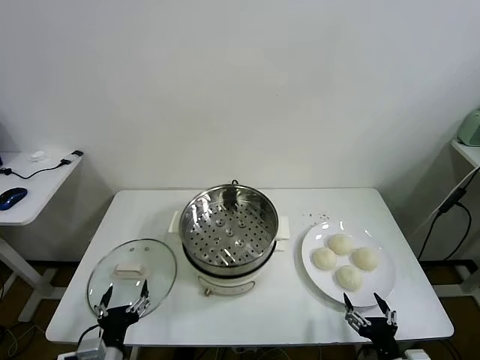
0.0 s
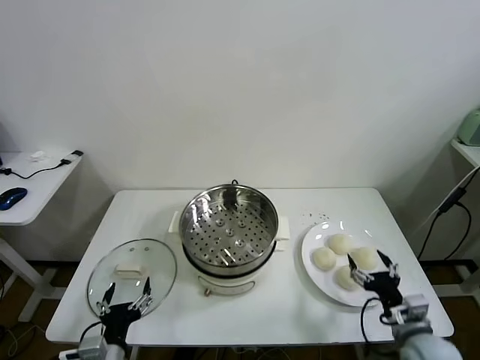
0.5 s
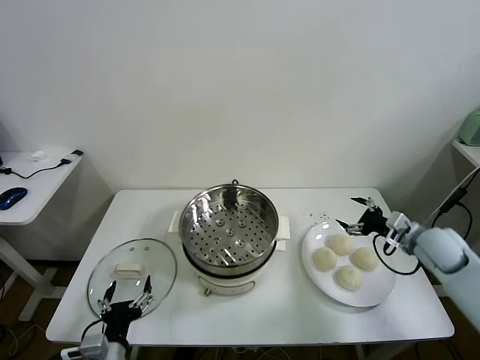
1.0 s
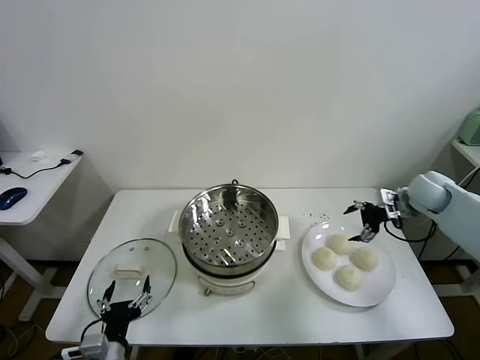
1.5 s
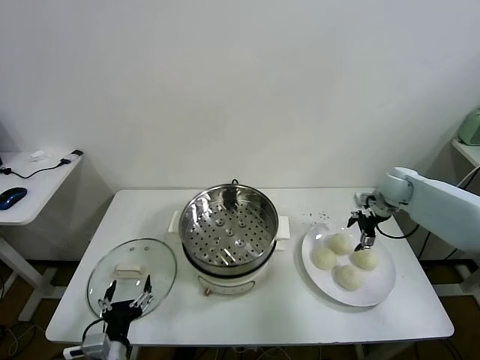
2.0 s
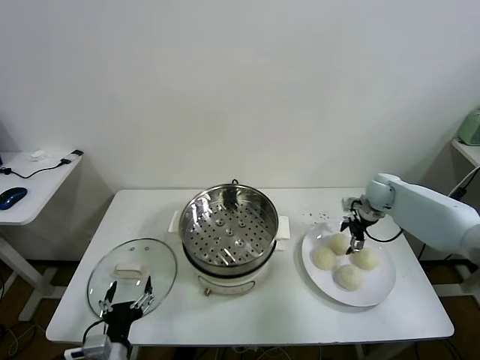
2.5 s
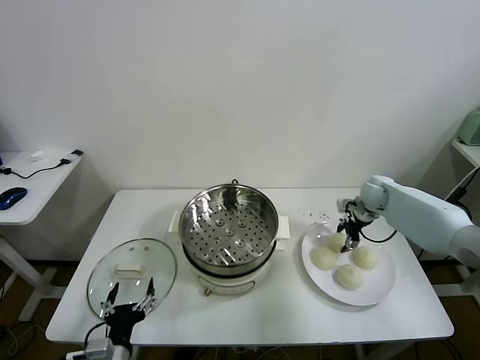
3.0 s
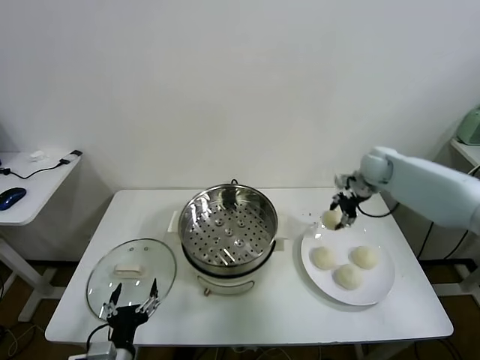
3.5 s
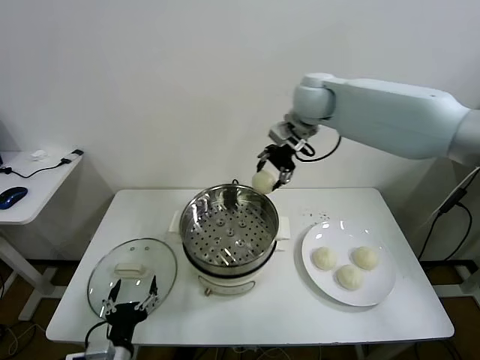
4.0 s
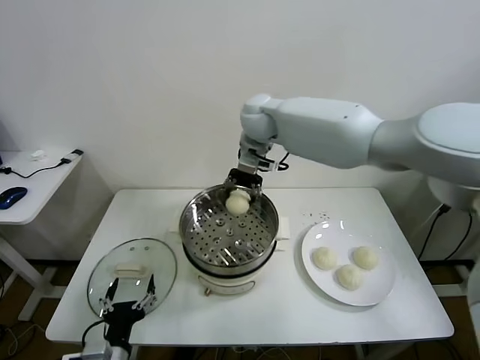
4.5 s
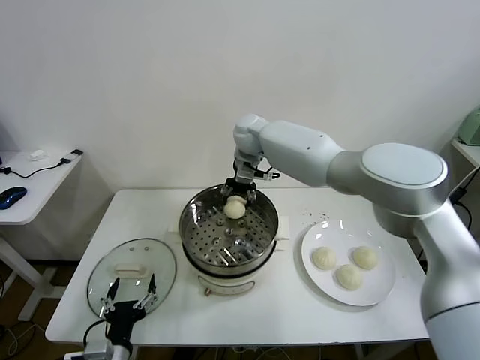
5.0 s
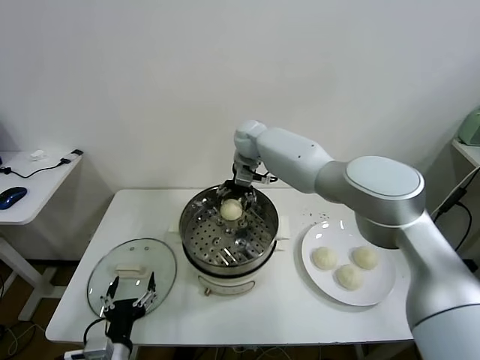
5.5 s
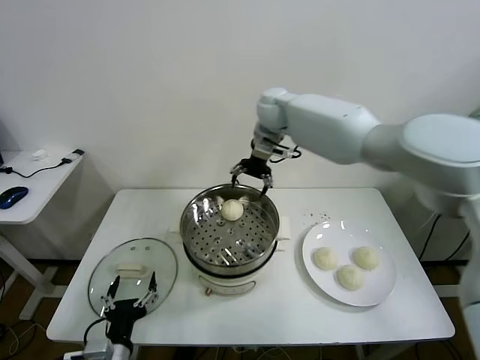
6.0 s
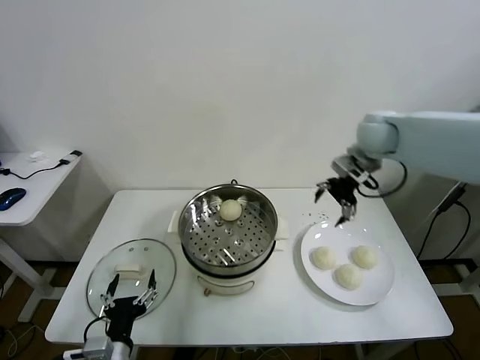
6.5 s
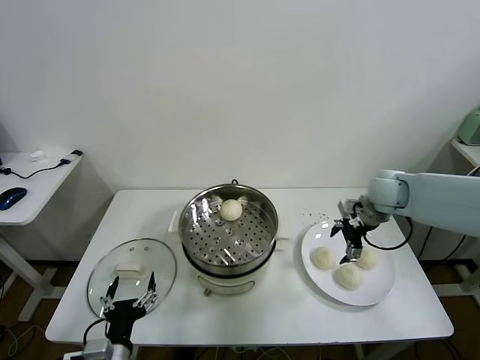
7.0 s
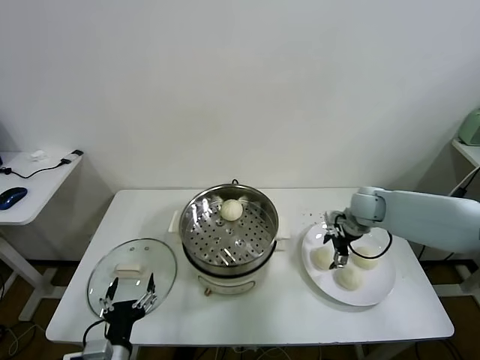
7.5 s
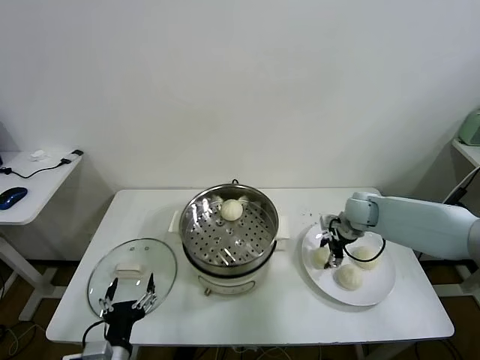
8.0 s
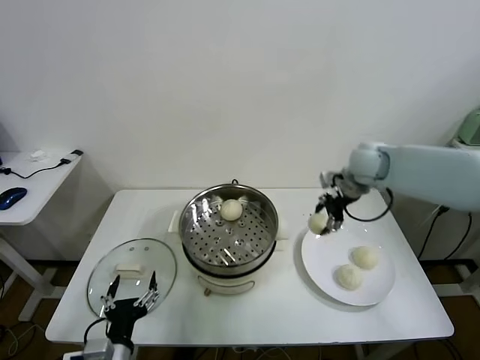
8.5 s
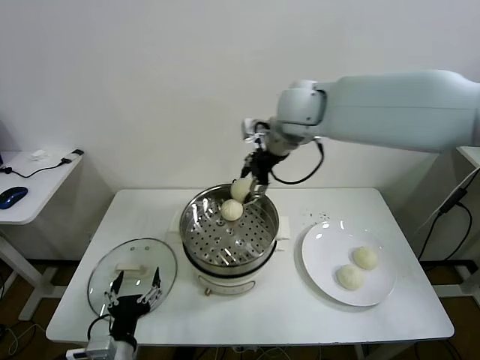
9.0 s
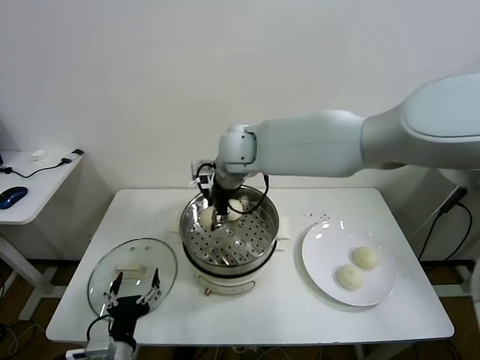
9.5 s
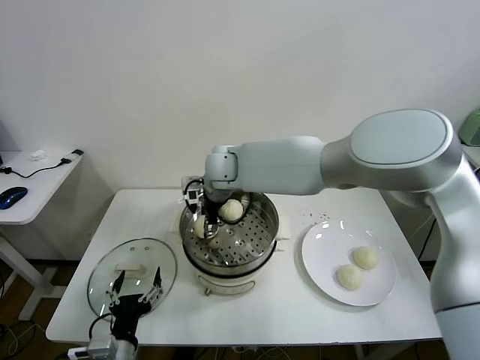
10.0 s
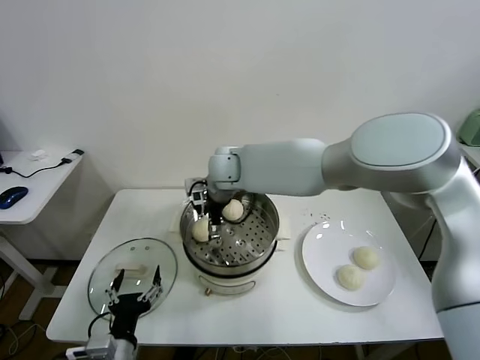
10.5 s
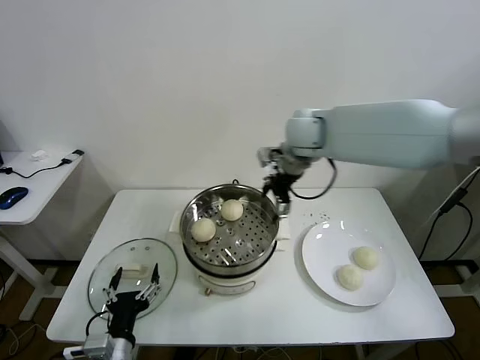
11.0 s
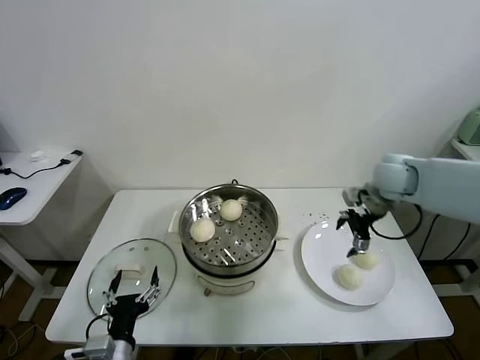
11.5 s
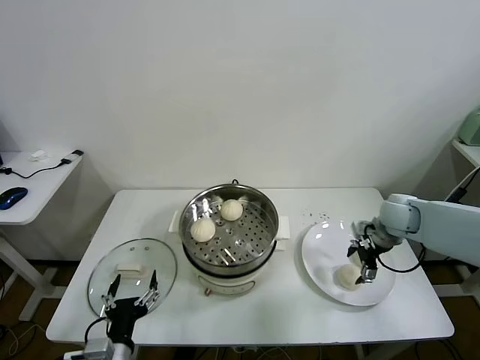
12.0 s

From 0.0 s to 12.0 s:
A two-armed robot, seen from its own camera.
Task of the whole recording: take steamed baozi put them in steamer.
Step, from 0.0 s to 3.0 s: Grasp the baozi in the plate with right gripper.
Step, from 3.5 s to 5.5 s: Place the baozi on the steamer with right gripper.
Step, from 6.0 s to 8.0 s: Grasp the baozi in the plate with right gripper.
Step, from 8.5 s to 10.0 s: Place the baozi on the steamer with right gripper.
From 2.0 s to 4.0 s: The right gripper is displaced to the left and upward by approximately 40 cm, and closes its fingers.
From 4.0 s to 6.0 s: The right gripper goes approximately 5 cm forward, goes downward and returns, some 15 cm each way, and opens.
From 6.0 s to 8.0 s: The right gripper is displaced downward, to the right and backward by approximately 35 cm, and closes up.
From 8.0 s to 10.0 s: The right gripper is displaced to the left by some 35 cm.
From 10.0 s to 12.0 s: The right gripper moves to the right, approximately 40 cm, and opens.

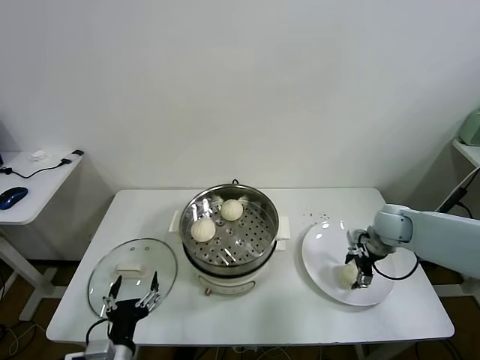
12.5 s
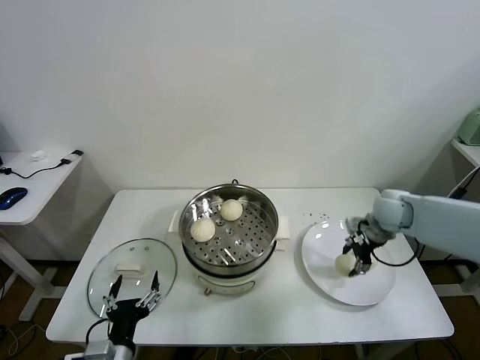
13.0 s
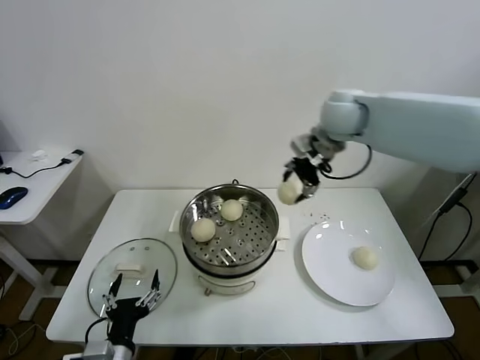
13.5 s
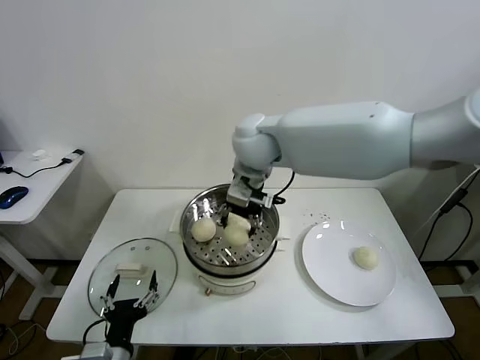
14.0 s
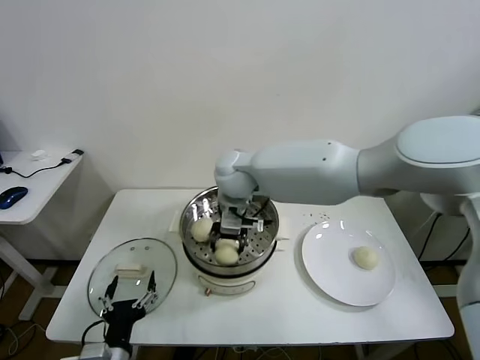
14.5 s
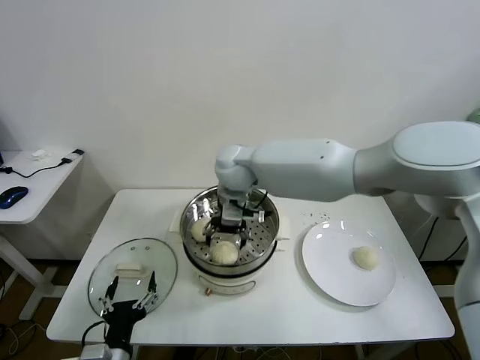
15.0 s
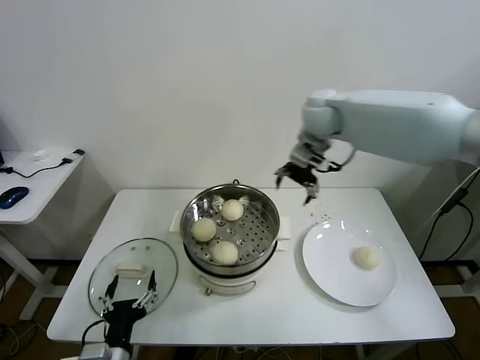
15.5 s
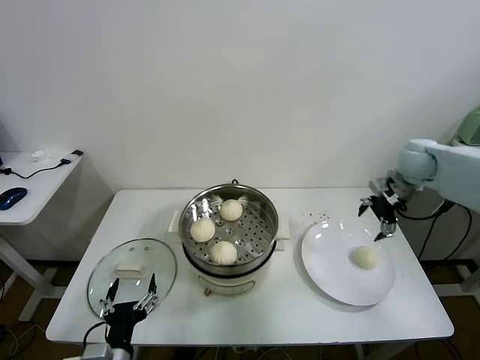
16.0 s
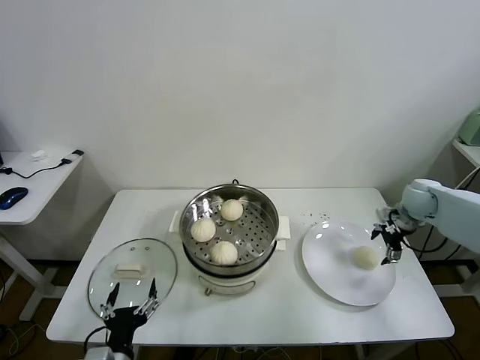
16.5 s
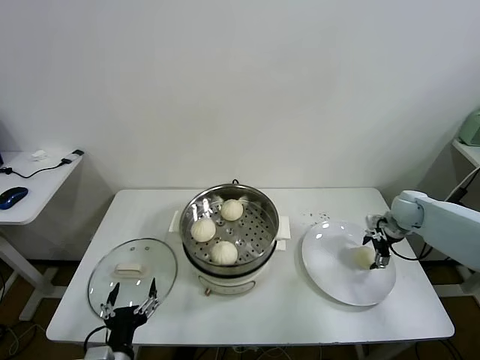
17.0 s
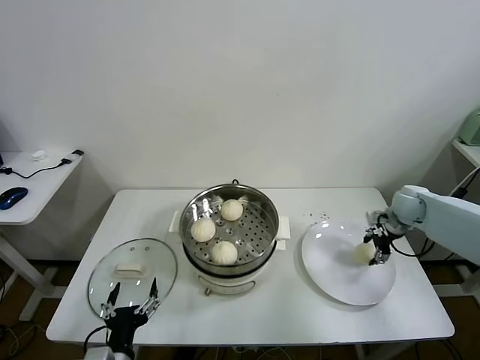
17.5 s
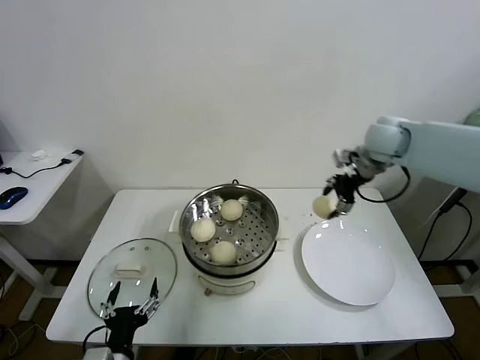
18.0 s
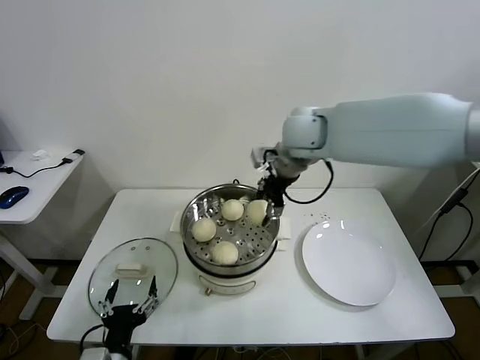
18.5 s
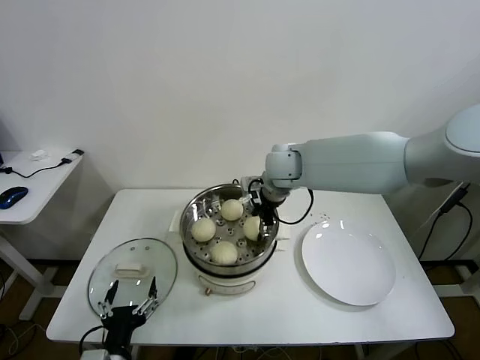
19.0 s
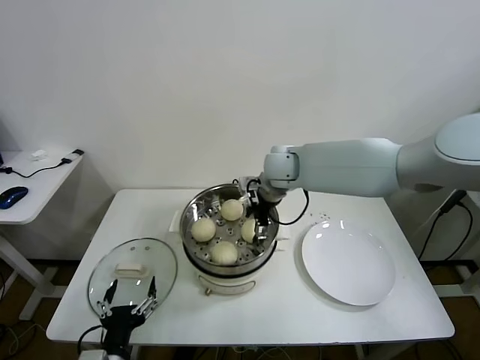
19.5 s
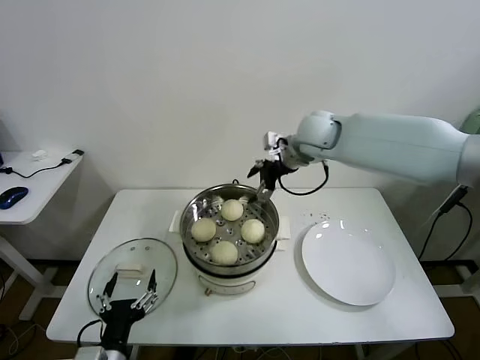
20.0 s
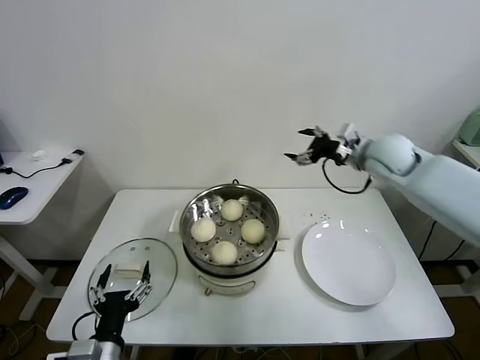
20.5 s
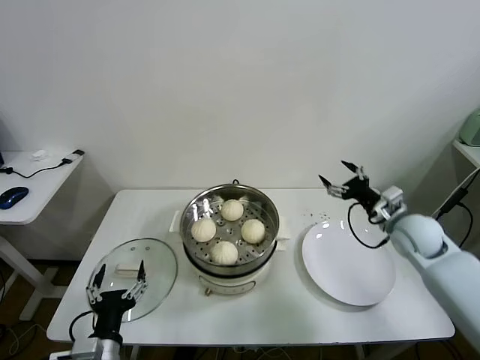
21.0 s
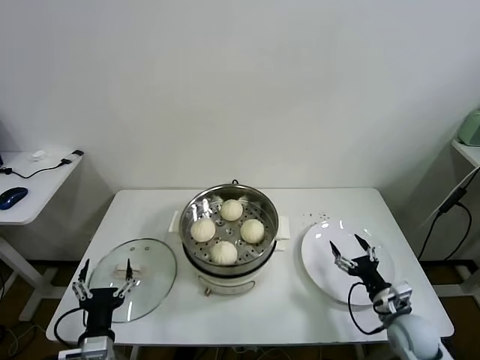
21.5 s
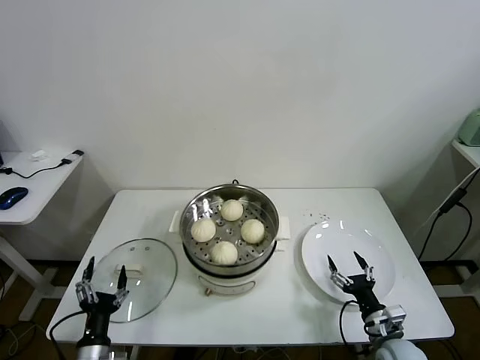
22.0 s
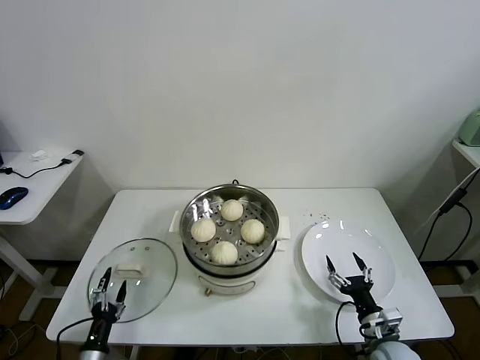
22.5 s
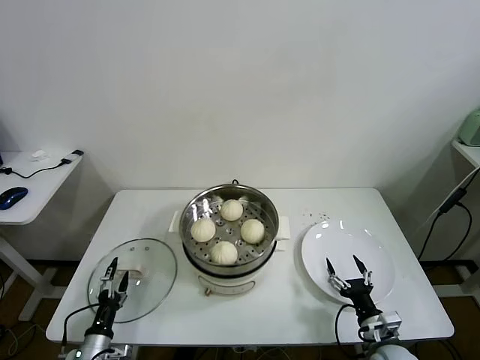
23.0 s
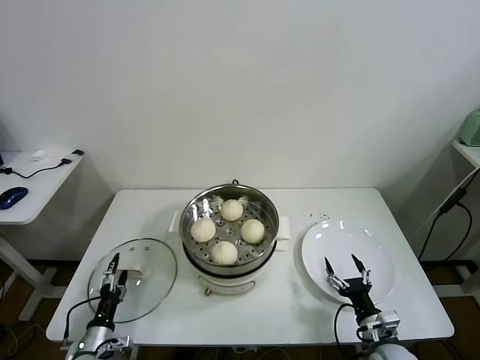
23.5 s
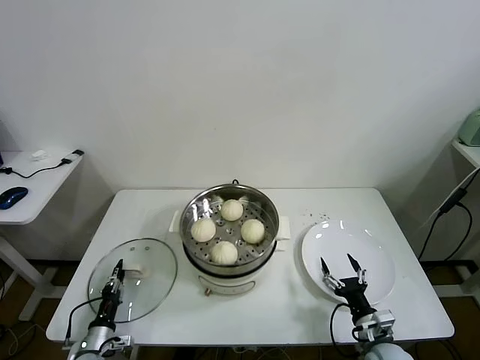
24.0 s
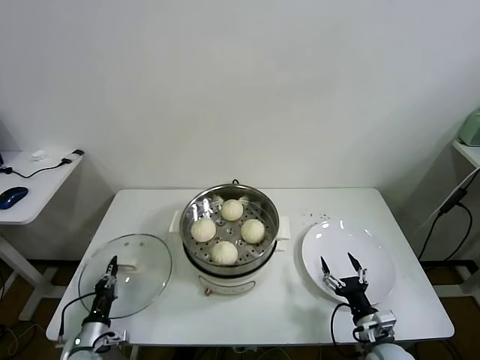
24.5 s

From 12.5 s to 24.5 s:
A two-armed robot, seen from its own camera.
Task of the whole recording: take steamed baozi put them in steamer.
Step, from 13.0 s to 14.5 s: Place the baozi on the steamer with right gripper.
Step, from 15.0 s to 17.0 s: Grasp the baozi in the plate with right gripper.
Step, from 17.5 s to 19.5 s: Place the baozi on the steamer with right gripper.
Step, from 20.0 s to 24.0 s: Grasp the pot lid with left gripper.
From 12.5 s to 14.5 s: The right gripper heads to the left, covering roughly 40 cm, and closes.
From 14.5 s to 16.5 s: The right gripper goes about 50 cm to the right, and opens.
From 16.5 s to 18.5 s: The right gripper heads to the left and upward, covering about 40 cm, and closes its fingers.
From 18.5 s to 20.5 s: The right gripper moves to the right, some 20 cm, and opens up.
From 20.5 s to 22.5 s: The left gripper is displaced downward and to the left by some 20 cm; the right gripper travels downward and backward by roughly 50 cm.
From 22.5 s to 24.5 s: The left gripper is displaced forward by some 5 cm, and closes.

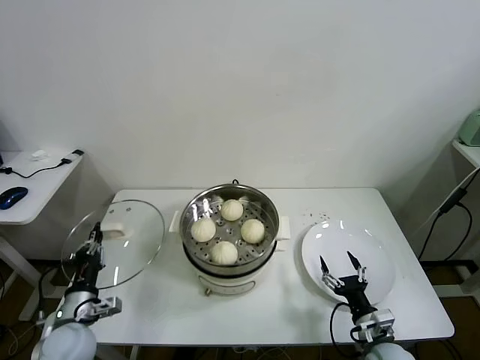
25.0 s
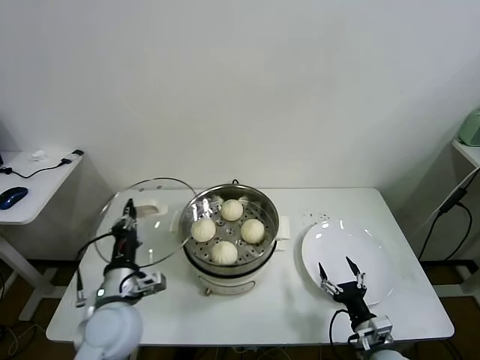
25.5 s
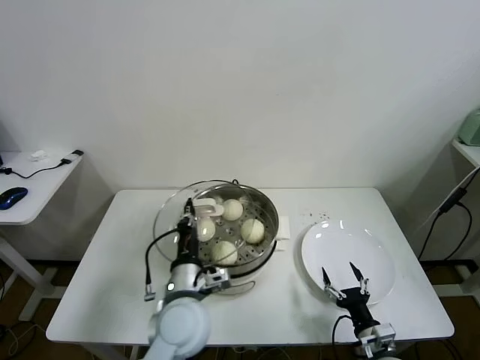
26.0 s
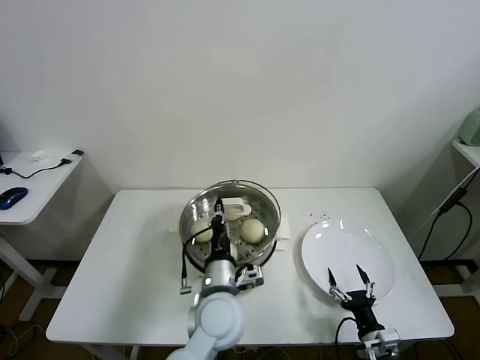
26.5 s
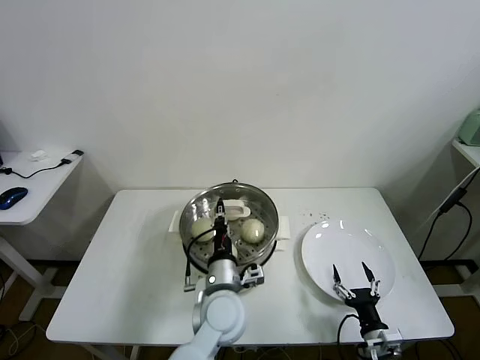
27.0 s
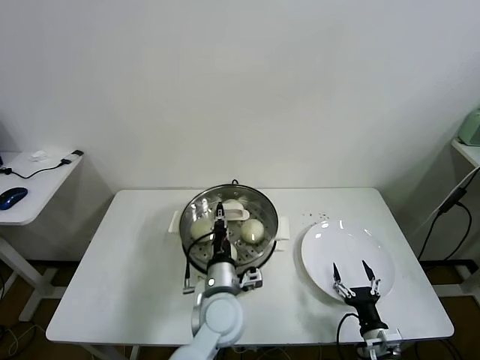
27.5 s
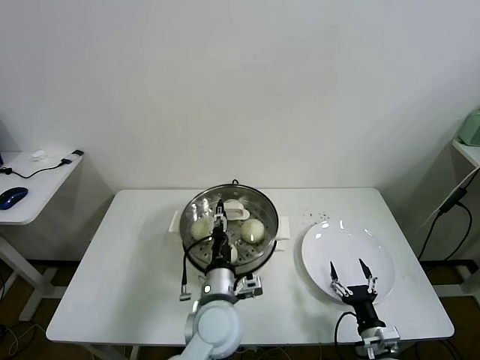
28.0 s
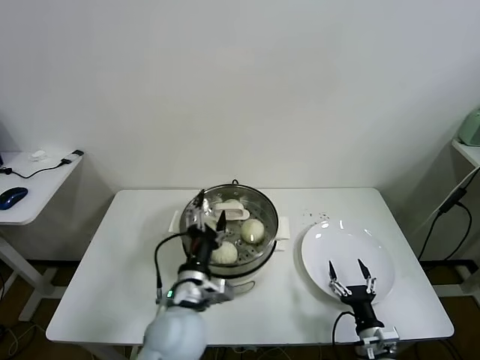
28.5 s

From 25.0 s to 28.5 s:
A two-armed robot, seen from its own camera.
Task of the whole recording: take steamed baozi put them in steamer.
Step, from 25.0 s to 27.5 s: Place the pot lid on the steamer with left gripper.
From 25.0 s to 27.0 s: The left gripper is displaced to the right by about 30 cm.
From 27.0 s to 28.5 s: The left gripper shifts approximately 5 cm to the left, and opens its fingers.
